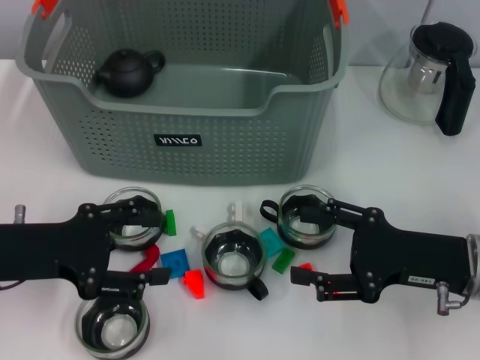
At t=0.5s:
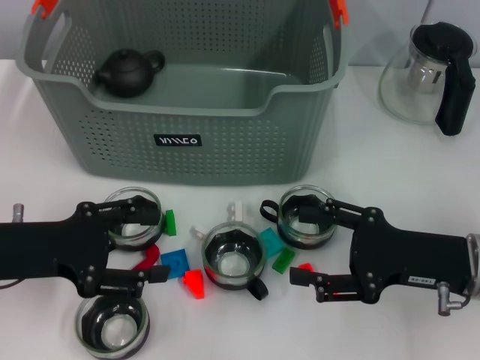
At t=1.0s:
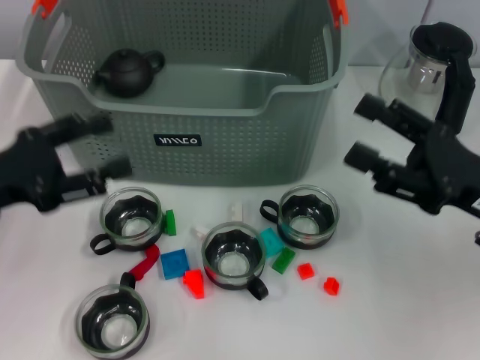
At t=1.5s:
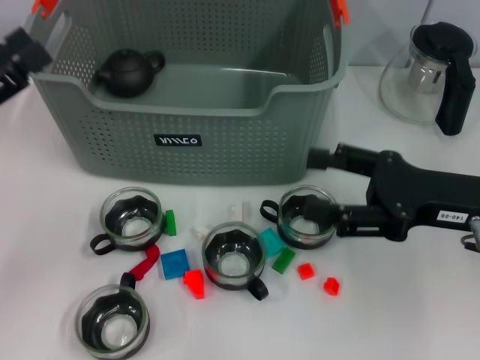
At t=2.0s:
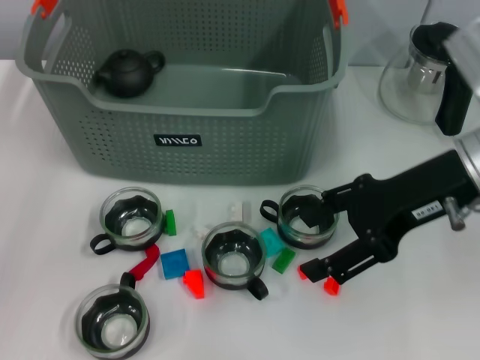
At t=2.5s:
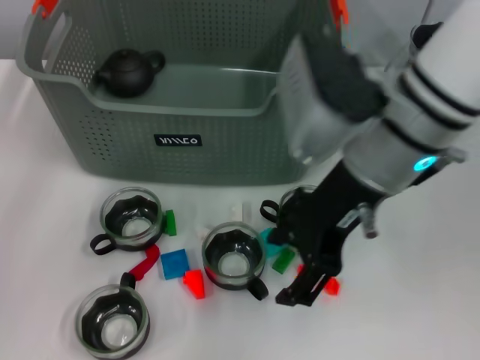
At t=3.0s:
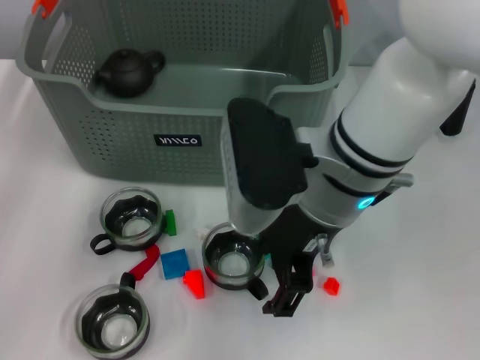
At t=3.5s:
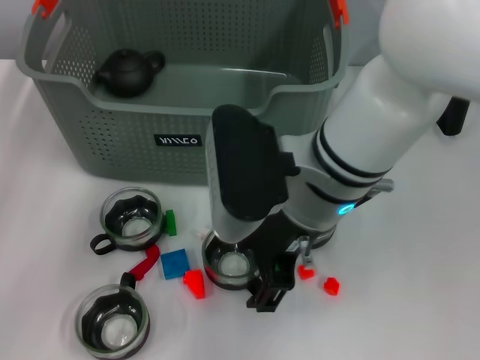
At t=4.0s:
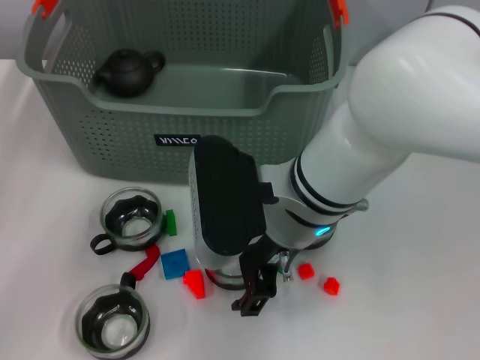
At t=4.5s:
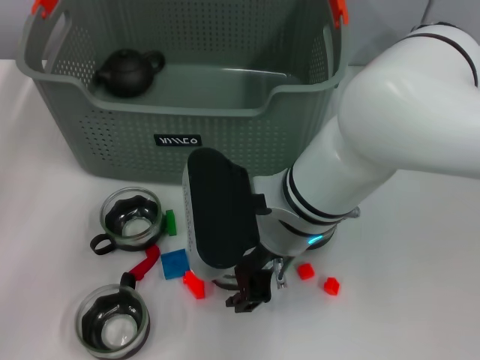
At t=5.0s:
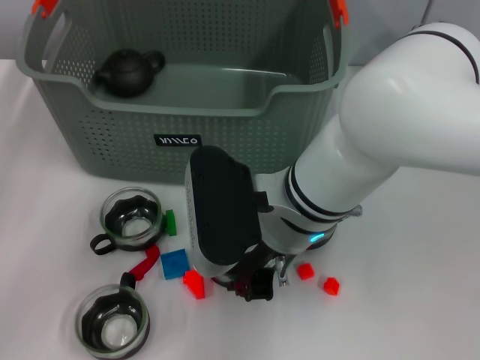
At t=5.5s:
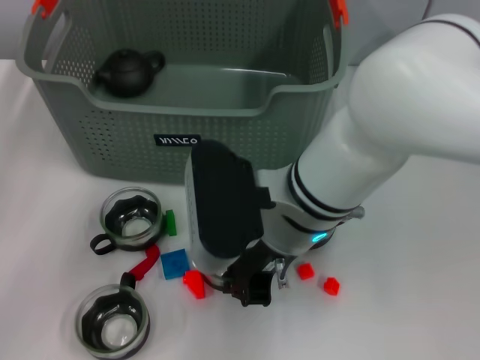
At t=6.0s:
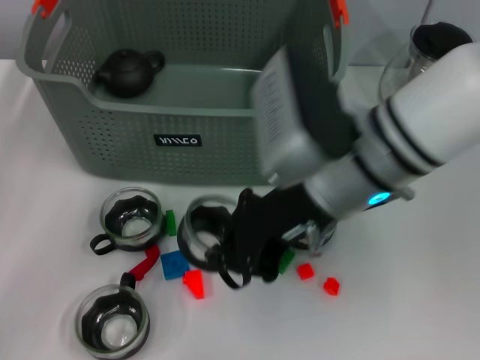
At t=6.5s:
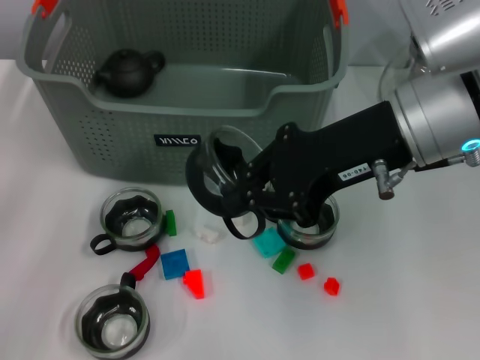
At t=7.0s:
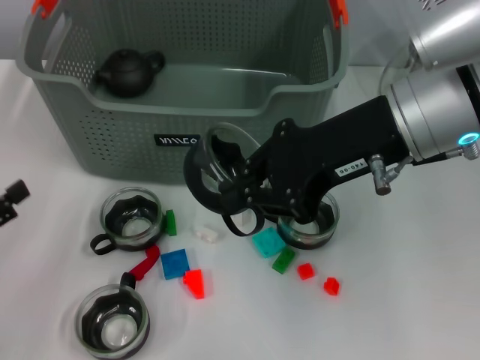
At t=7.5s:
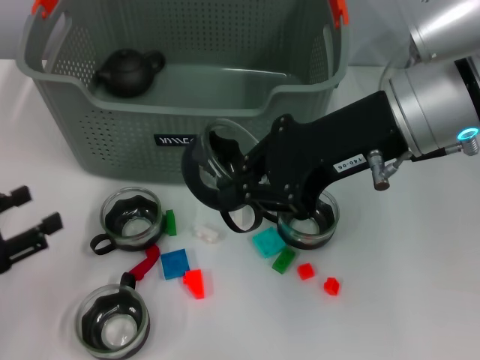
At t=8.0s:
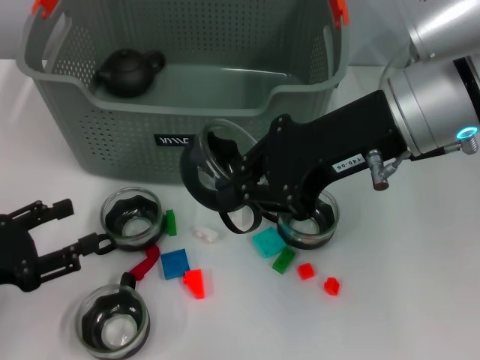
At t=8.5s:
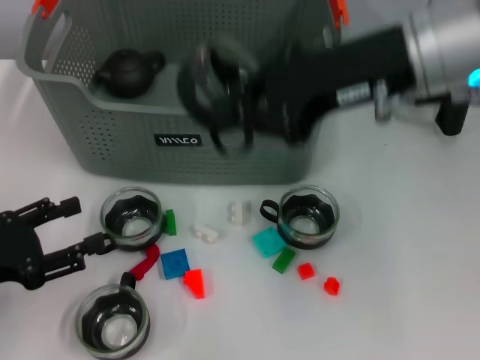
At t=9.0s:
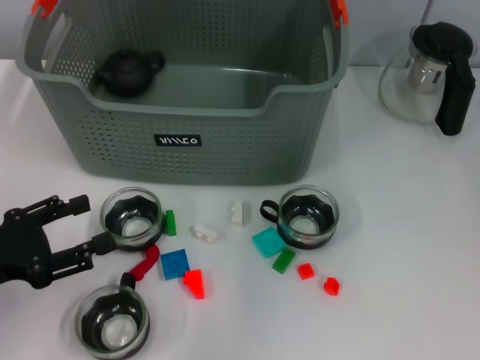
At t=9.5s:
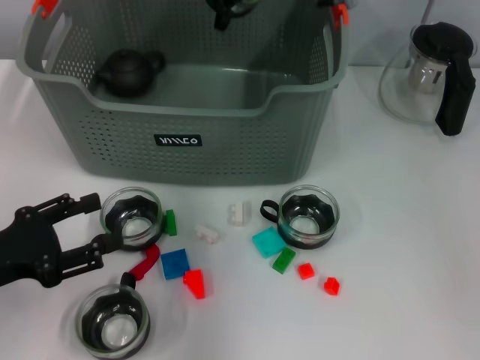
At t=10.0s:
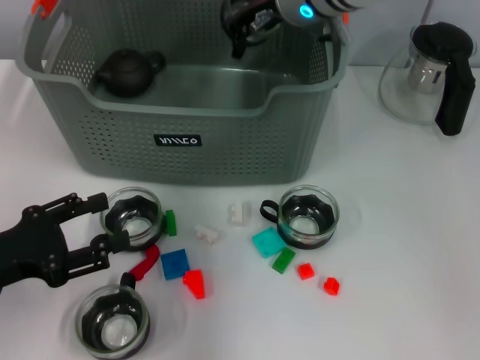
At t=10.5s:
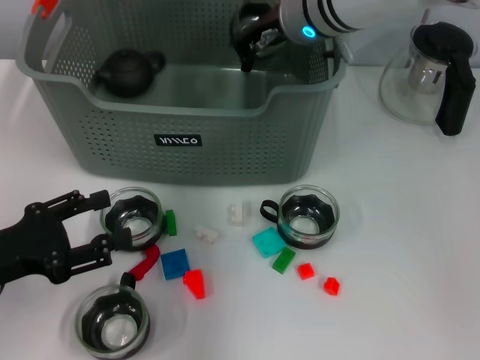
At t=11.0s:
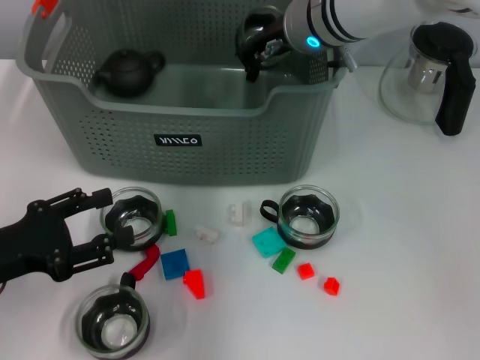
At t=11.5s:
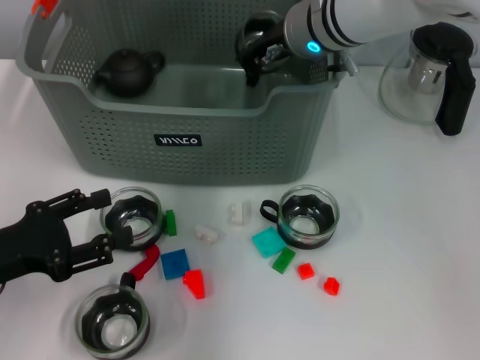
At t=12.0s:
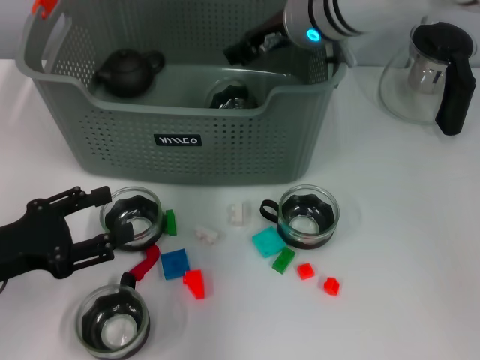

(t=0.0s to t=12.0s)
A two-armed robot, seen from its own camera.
Task of the whole recording: pick up the teacup on the table and place it into the storage bin, pick up the block on the table and place it into the storage bin.
Step, t=0.0s - t=5.0s: Grasp the cup with right gripper.
Step, t=5.5s - t=11.5s: Place the cup in the storage box with right gripper.
t=0.0s - t=2.0s: The left gripper is displaced to the left by some 5 cm. The right gripper travels upward and forward by roughly 15 cm.
t=2.0s - t=4.0s: The right gripper travels to the left by about 15 cm.
t=4.0s - t=6.0s: The right gripper moves roughly 5 cm, and closes its fingers.
t=6.0s - t=8.0s: The left gripper shifts by some 5 cm. The right gripper goes about 5 cm to the right.
t=8.0s - t=10.0s: The right gripper heads forward and to the left, covering about 15 cm.
t=10.0s - t=12.0s: The grippers move only a little.

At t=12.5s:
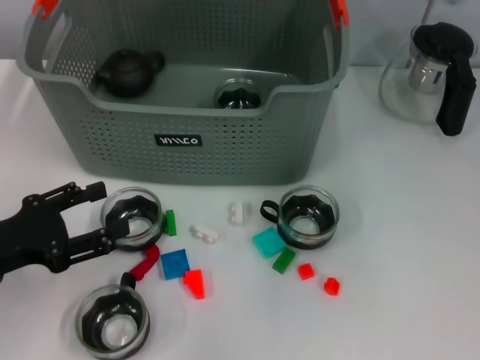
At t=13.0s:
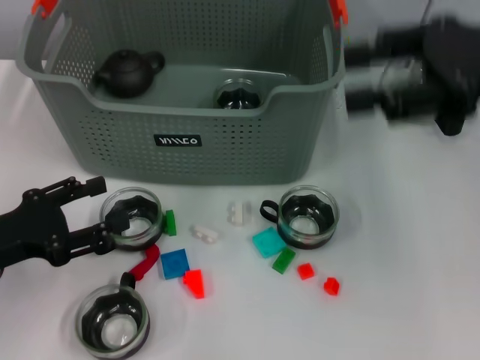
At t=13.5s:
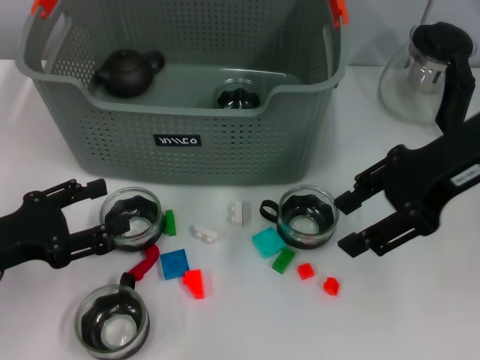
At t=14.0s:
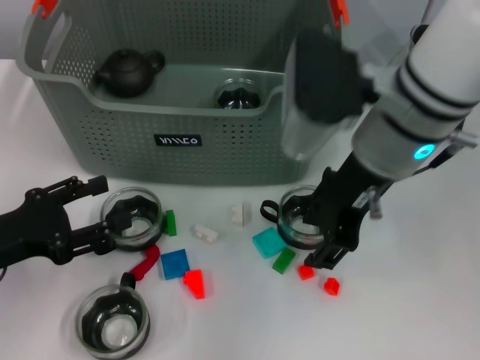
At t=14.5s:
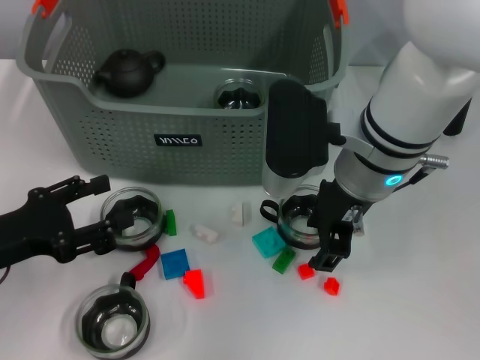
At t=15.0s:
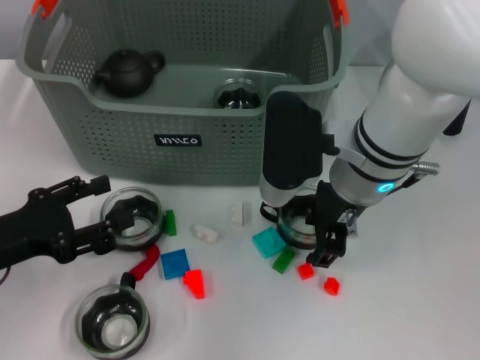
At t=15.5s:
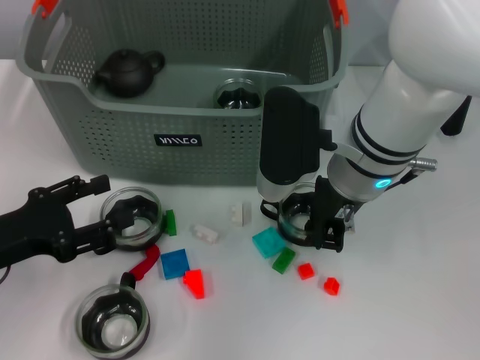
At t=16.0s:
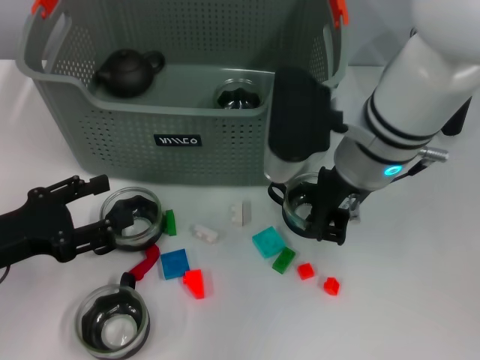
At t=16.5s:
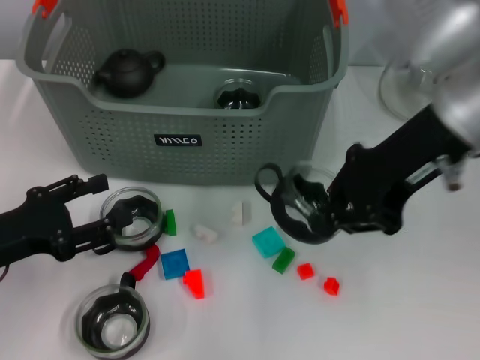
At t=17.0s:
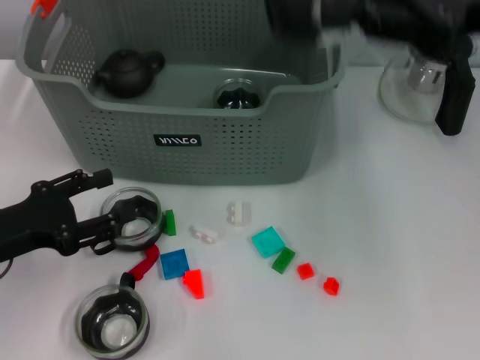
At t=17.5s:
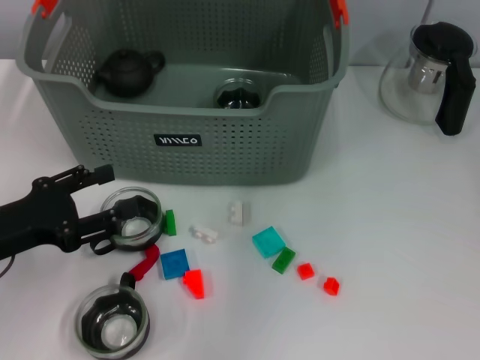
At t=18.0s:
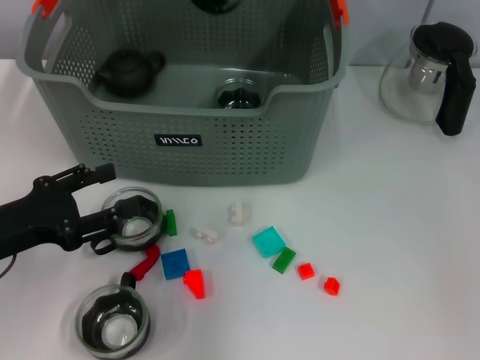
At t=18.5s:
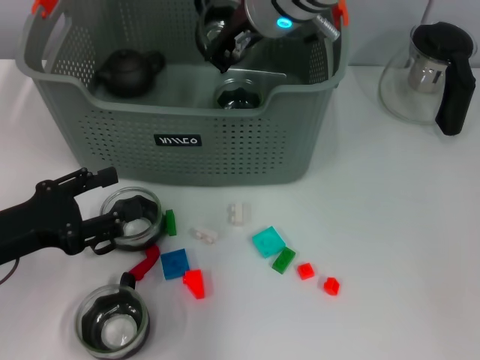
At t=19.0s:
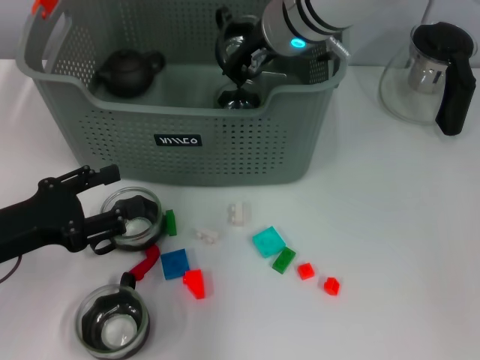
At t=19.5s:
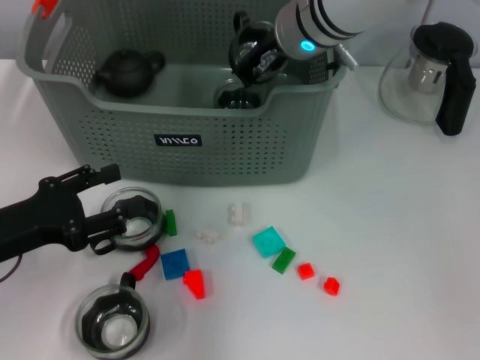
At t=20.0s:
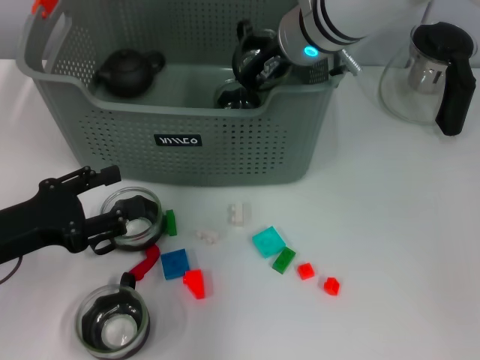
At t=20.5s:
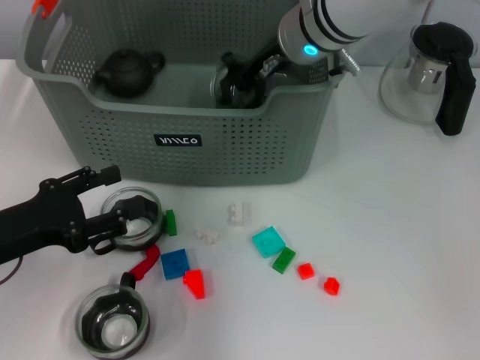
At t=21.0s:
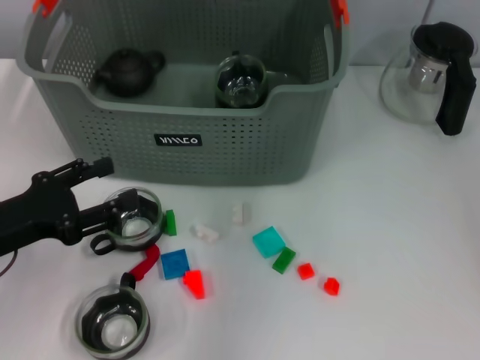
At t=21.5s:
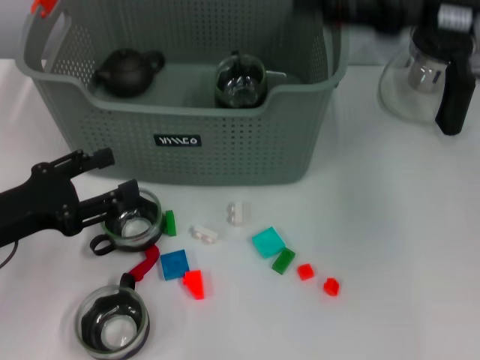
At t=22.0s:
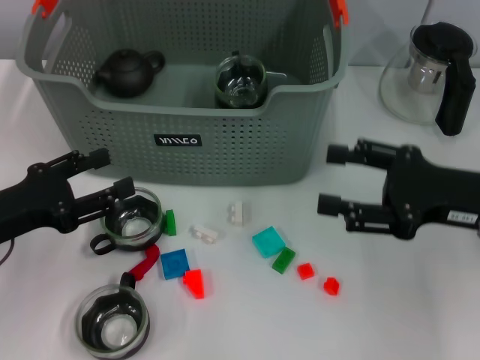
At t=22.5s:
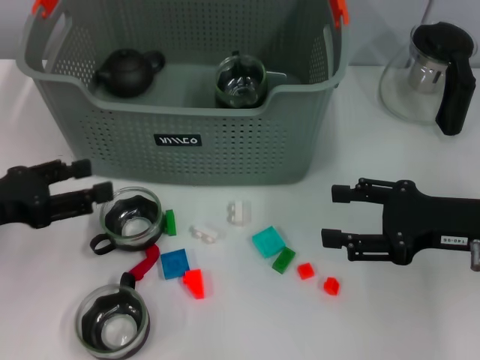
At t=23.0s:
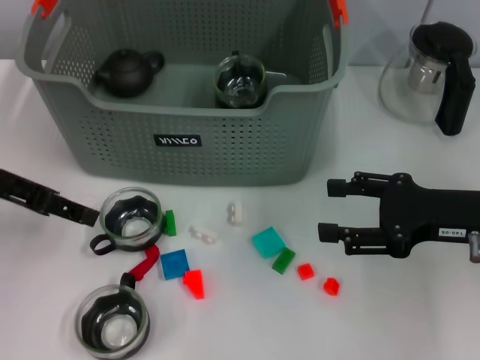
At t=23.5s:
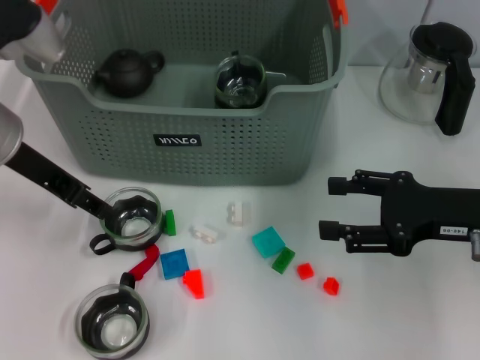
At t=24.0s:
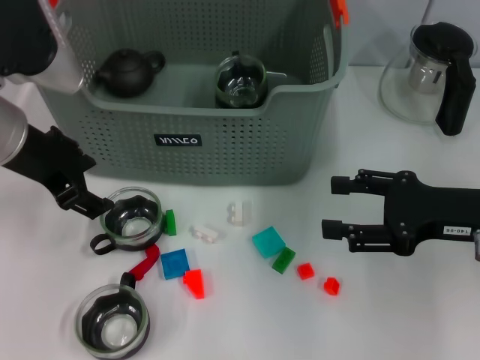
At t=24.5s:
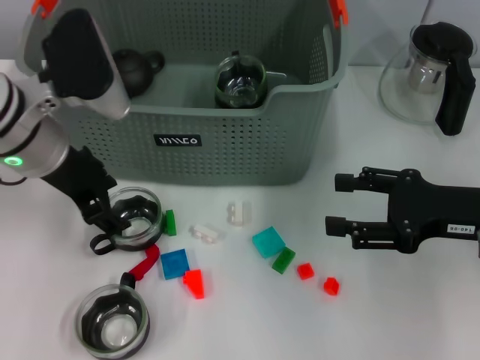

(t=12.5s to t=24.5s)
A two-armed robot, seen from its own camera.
Task of the whole recording: pick up the teacup on the table and place it into the storage bin, pick up the block on the table and place it into the storage bin.
Step, t=12.5s - t=15.5s: Grasp the cup with right gripper.
Step, t=16.0s - t=20.5s: Place the cup in the storage box with right gripper.
t=12.5s - t=14.5s: The right gripper goes roughly 15 cm downward, to the left and backward.
t=14.5s - t=16.5s: The right gripper is displaced upward and to the right by approximately 10 cm, and closes its fingers.
t=16.5s - t=18.5s: The right gripper travels to the left and forward by about 20 cm.
t=18.5s - t=20.5s: There are only small adjustments of the grippers.
t=20.5s - t=22.5s: The left gripper moves about 5 cm. The right gripper moves to the right, backward and downward, some 30 cm, and opens its fingers.
t=22.5s - t=24.5s: The left gripper travels to the right, forward and upward by about 15 cm.

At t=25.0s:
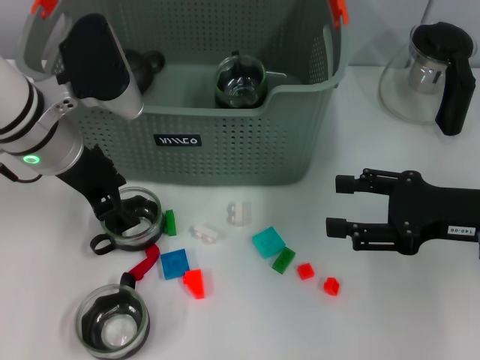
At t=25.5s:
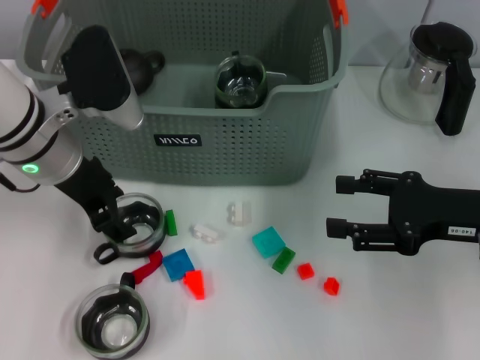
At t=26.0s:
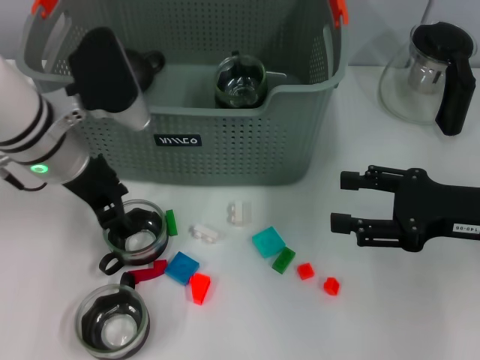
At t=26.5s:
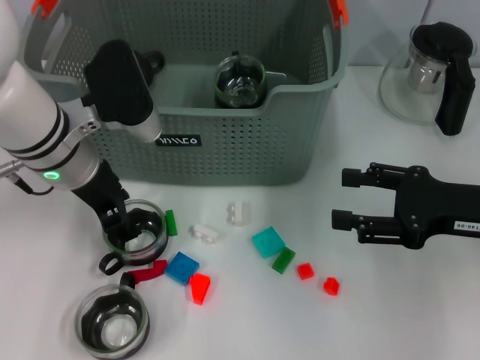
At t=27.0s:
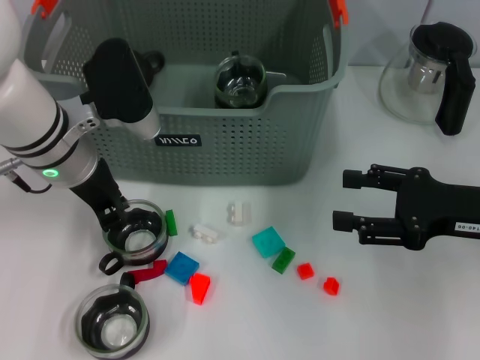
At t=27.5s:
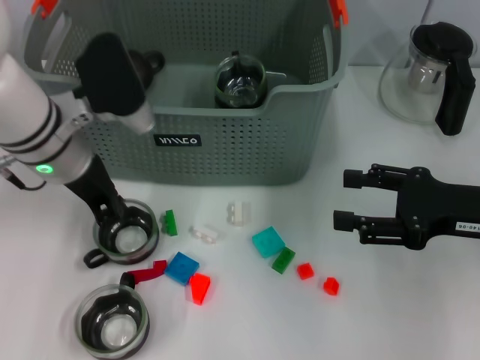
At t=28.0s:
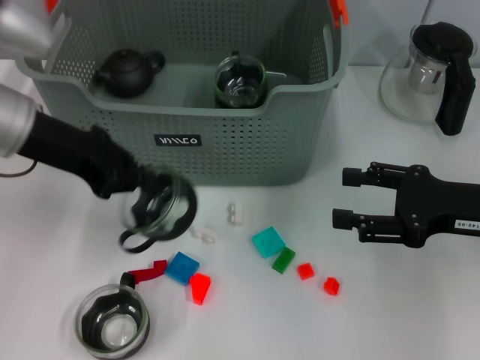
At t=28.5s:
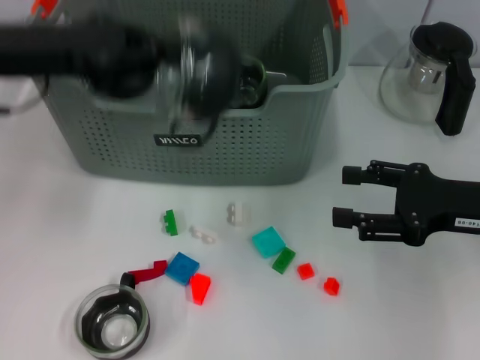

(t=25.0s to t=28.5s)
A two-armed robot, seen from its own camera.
Task of the whole recording: pick up the teacup on the table and place it into the storage bin, pick up the block on the table and place it into the storage bin.
Step, t=25.0s - t=27.0s: Grasp the cup with left gripper.
t=25.0s - t=27.0s: The left gripper closes up.
t=27.0s - t=28.5s: The left gripper travels upward and to the left by some 10 cm, and closes.
